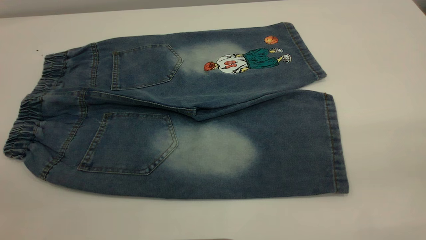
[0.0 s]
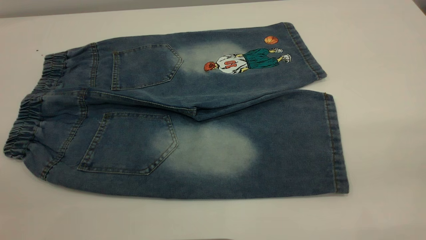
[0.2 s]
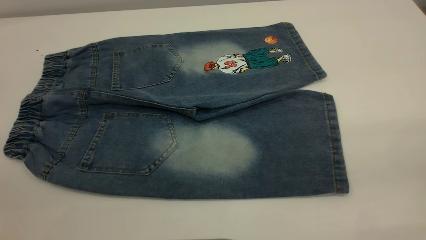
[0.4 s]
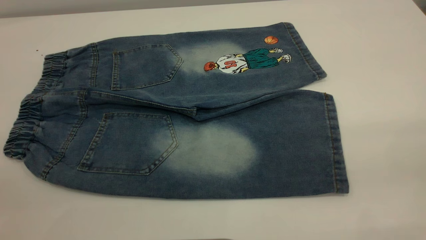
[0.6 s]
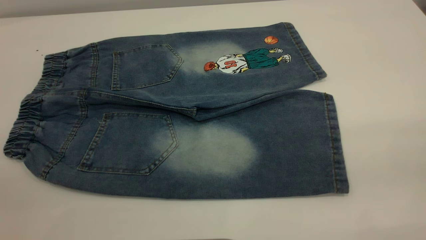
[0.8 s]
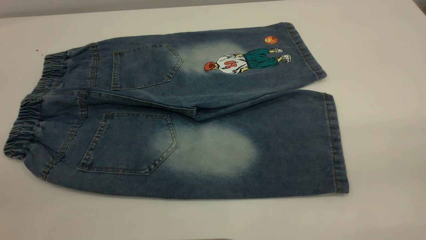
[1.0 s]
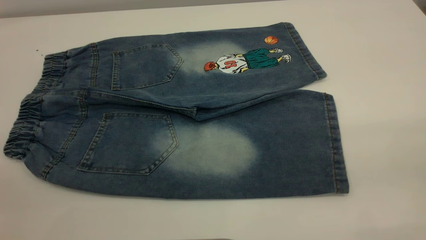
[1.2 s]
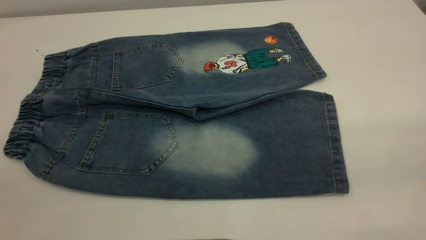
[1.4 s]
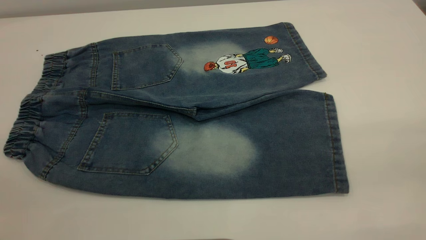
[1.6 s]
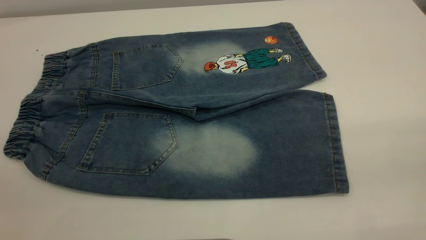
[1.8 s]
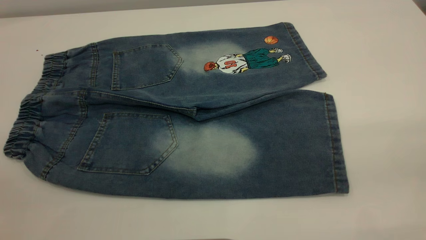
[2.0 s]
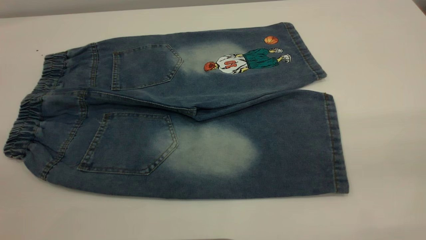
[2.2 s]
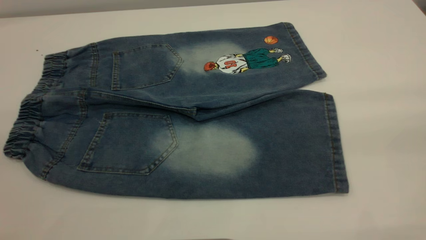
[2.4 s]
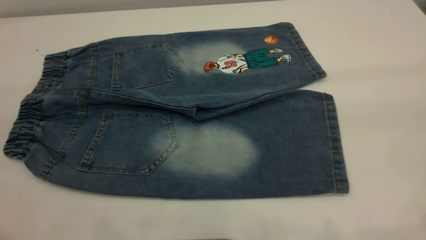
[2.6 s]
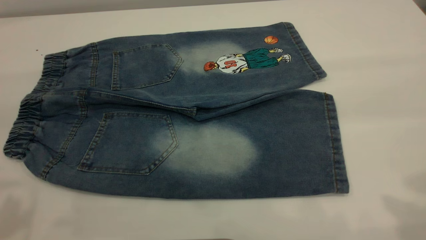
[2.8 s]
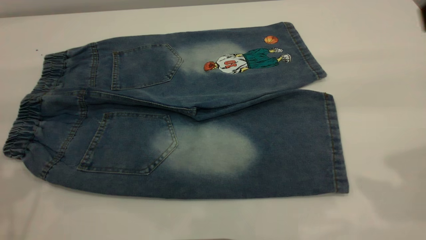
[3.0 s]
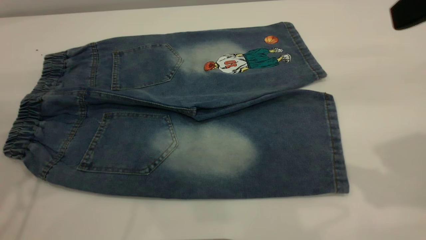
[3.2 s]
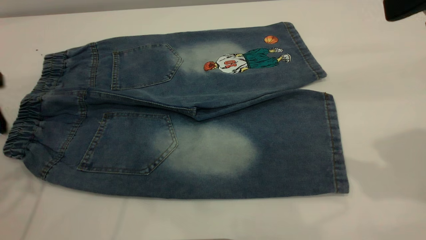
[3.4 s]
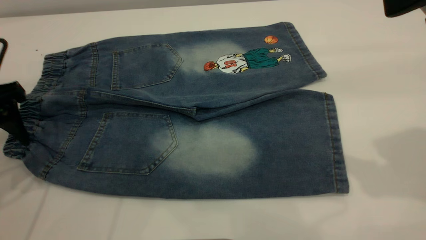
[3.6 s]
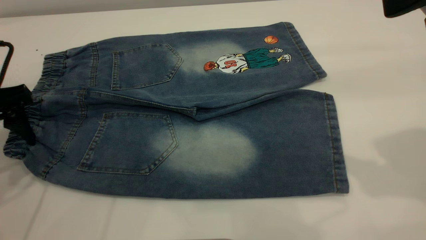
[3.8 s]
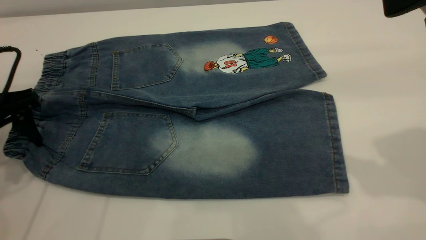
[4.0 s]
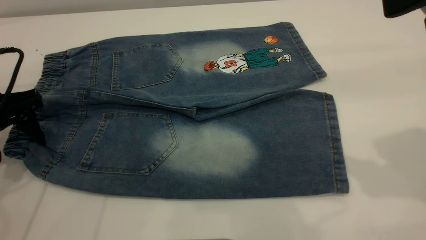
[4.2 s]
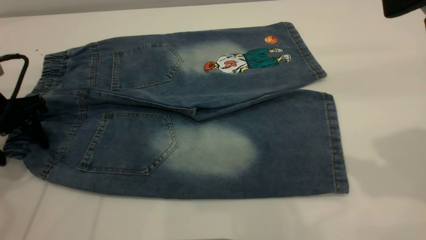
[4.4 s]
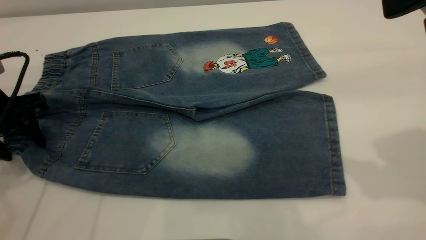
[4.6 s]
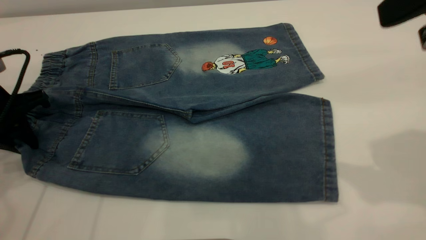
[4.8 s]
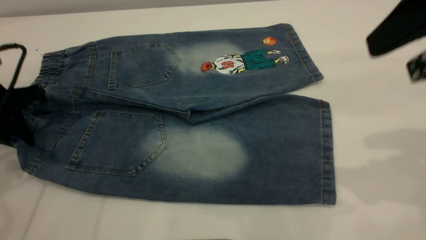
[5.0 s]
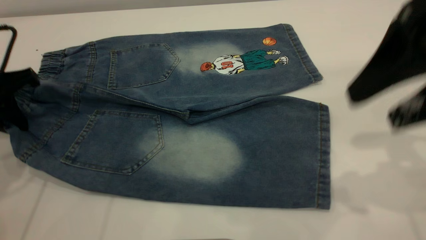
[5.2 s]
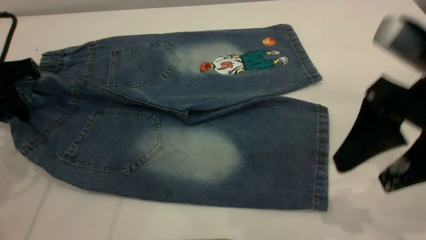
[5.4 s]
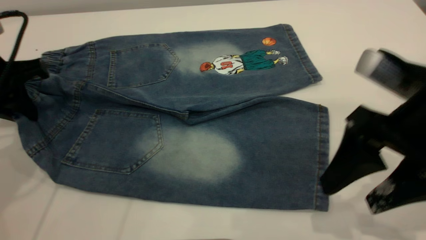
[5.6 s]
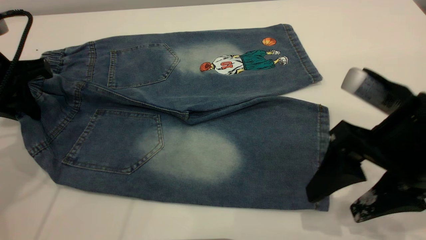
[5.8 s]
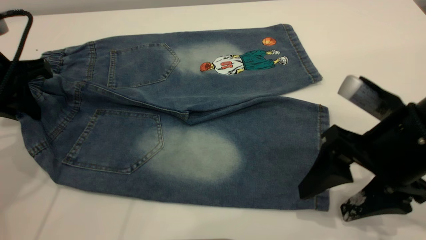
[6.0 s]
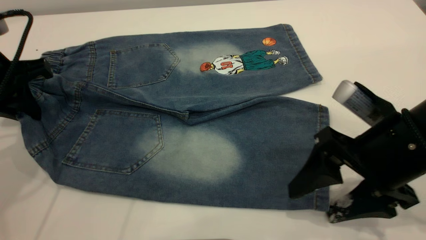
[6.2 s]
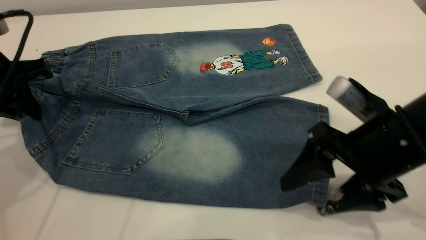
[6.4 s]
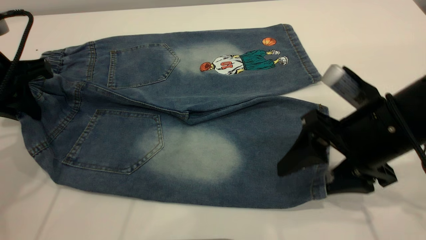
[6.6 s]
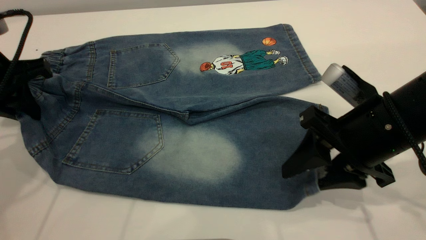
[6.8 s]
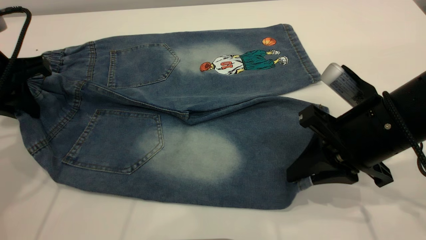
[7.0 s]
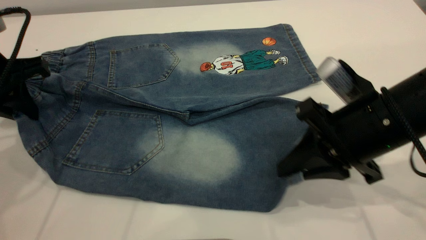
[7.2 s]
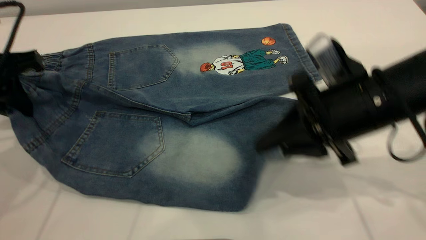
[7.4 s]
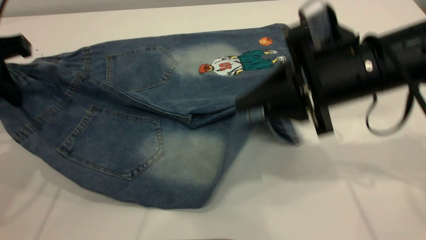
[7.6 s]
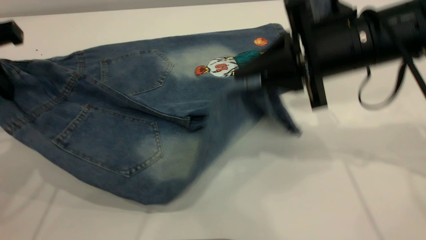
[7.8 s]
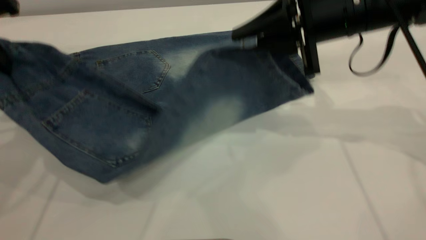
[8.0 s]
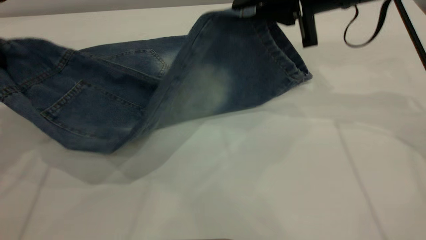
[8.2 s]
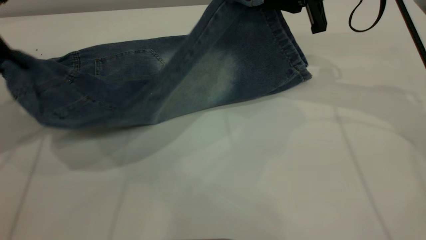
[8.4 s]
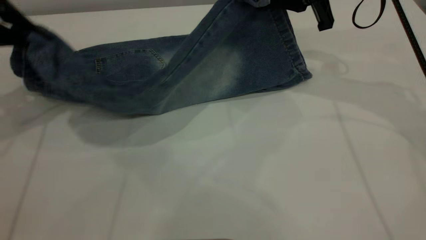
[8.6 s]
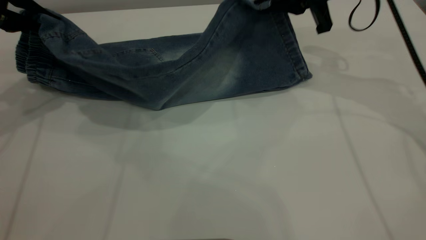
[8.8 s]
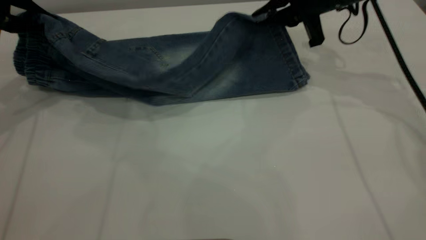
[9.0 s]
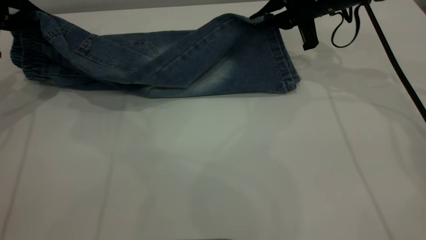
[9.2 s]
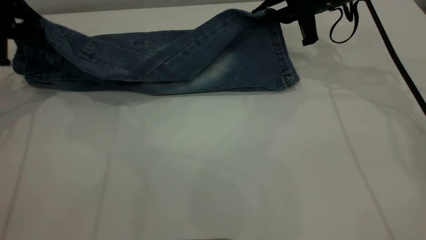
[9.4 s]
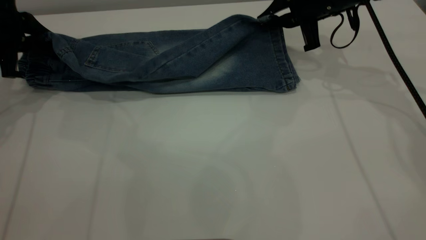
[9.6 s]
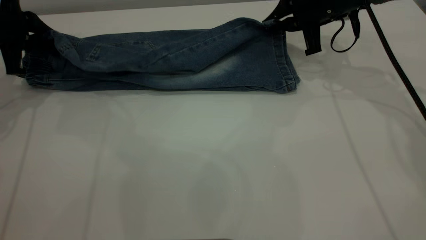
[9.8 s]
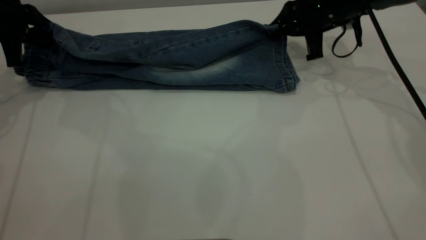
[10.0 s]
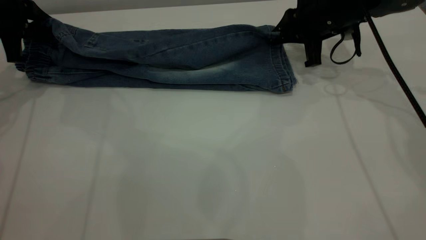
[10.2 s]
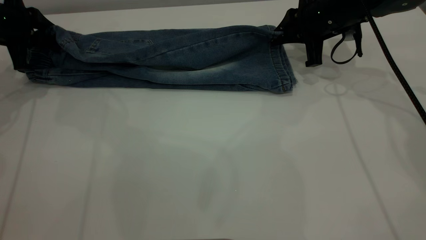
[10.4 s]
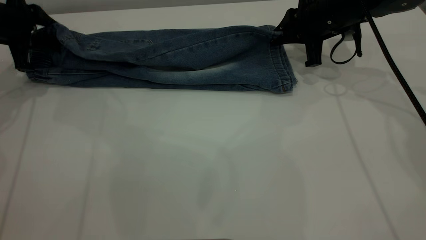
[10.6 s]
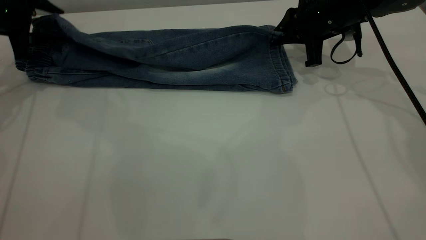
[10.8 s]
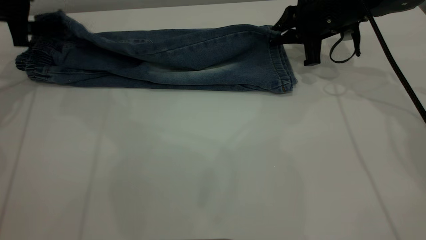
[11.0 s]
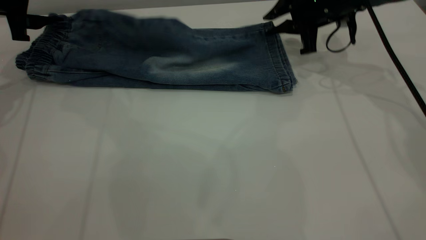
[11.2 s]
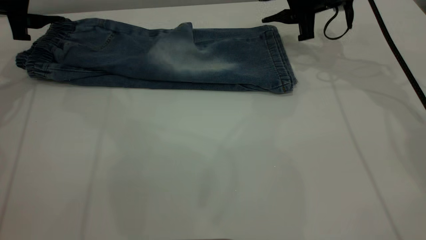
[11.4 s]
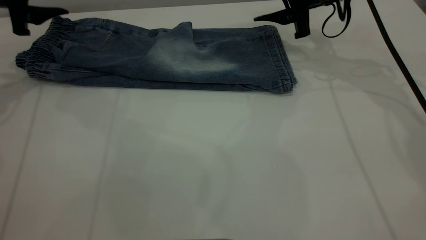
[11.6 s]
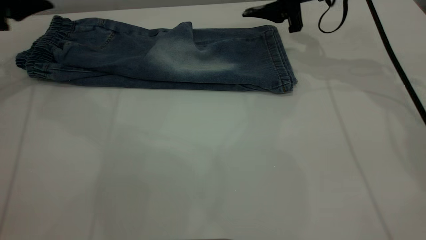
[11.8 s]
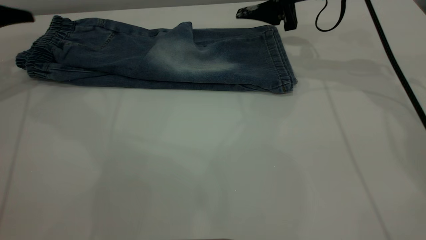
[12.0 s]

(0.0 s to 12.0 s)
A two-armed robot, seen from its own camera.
0.0 s - 1.6 s: Both grippers stay about where they are.
3.0 s - 4.4 s: The left gripper heads downward and forward, covering about 20 cm.
4.4 s - 6.0 s: The right gripper goes some 20 cm downward. The left gripper ends up about 5 cm from where it was, and closes up.
6.0 s - 7.6 s: The right gripper travels forward by about 5 cm, and closes. The left gripper moves about 5 cm.
7.6 s - 9.0 s: The right gripper is displaced forward by approximately 15 cm, while the left gripper heads forward and to the left, covering some 10 cm.
9.0 s - 10.4 s: The right gripper moves about 5 cm. The left gripper shifts about 5 cm downward.
10.4 s - 12.0 s: Both grippers move upward, roughly 5 cm. The right gripper opens its fingers; the left gripper opens up.

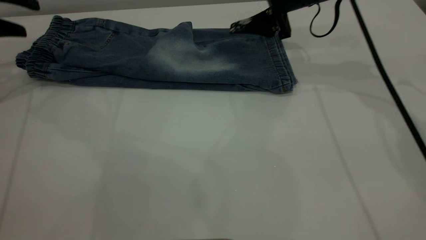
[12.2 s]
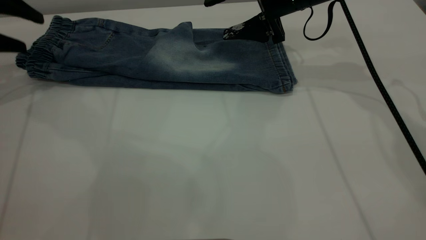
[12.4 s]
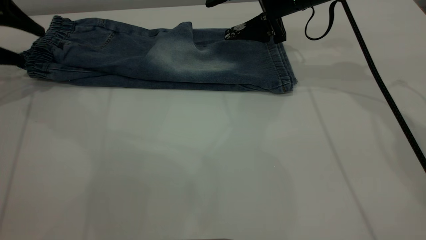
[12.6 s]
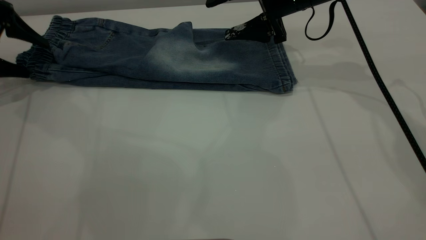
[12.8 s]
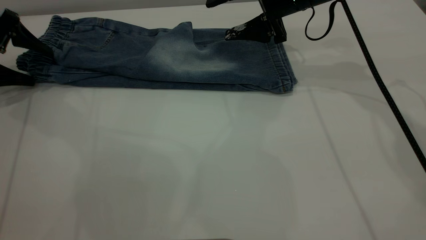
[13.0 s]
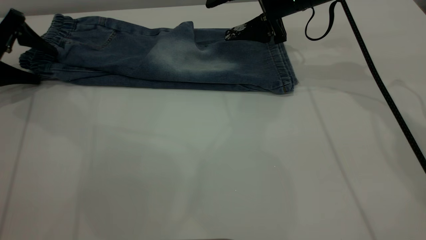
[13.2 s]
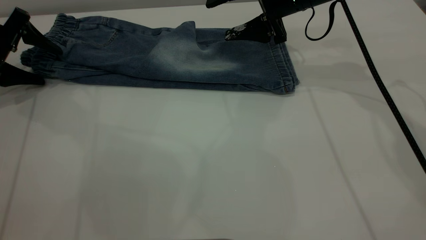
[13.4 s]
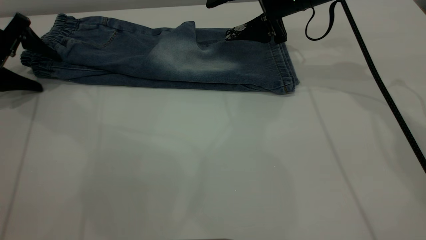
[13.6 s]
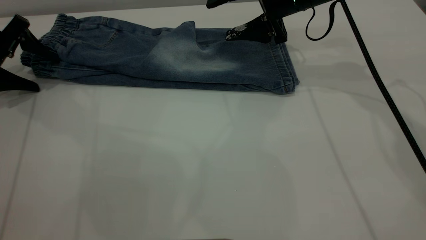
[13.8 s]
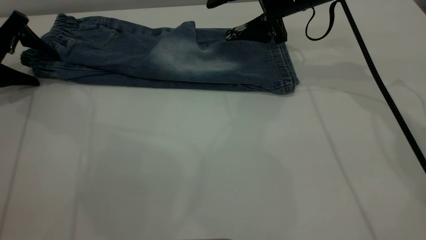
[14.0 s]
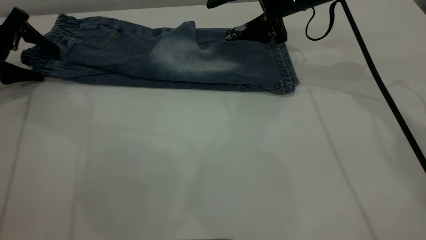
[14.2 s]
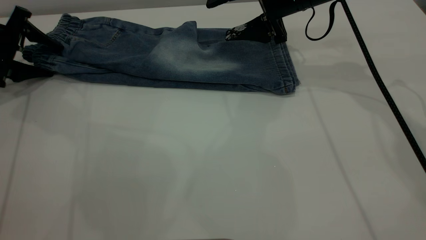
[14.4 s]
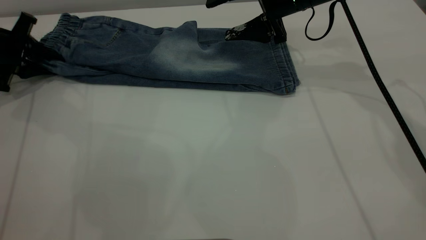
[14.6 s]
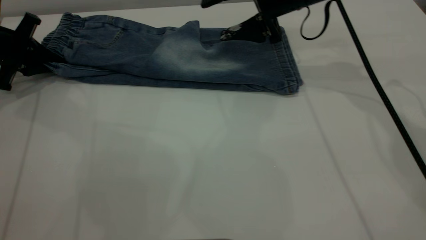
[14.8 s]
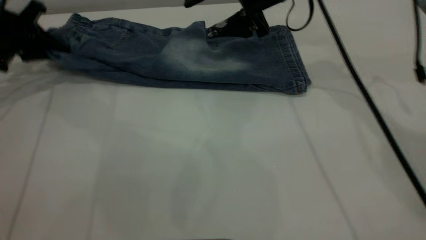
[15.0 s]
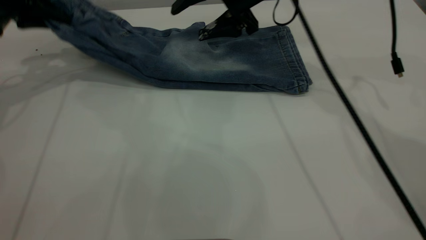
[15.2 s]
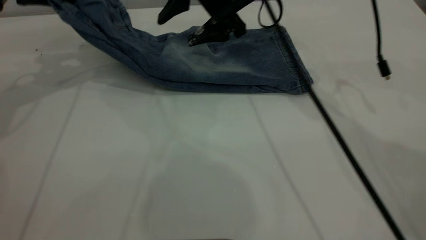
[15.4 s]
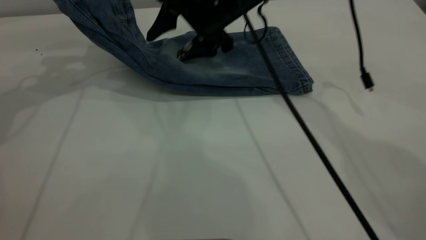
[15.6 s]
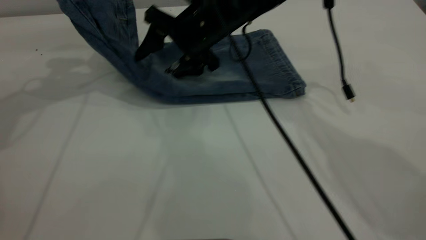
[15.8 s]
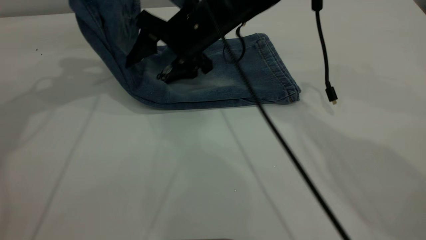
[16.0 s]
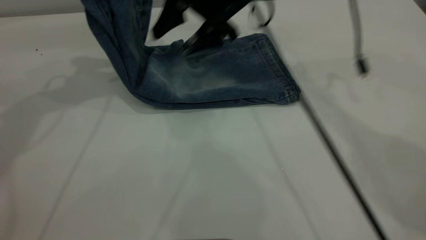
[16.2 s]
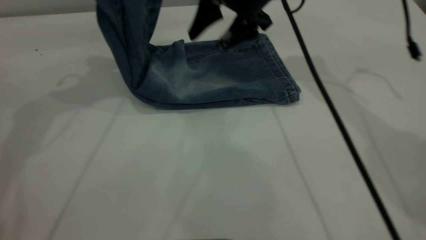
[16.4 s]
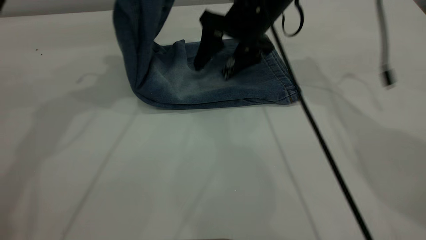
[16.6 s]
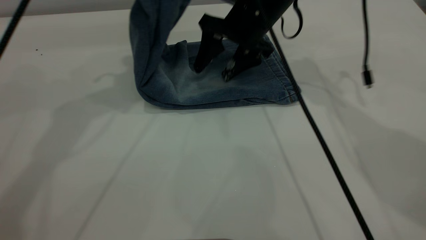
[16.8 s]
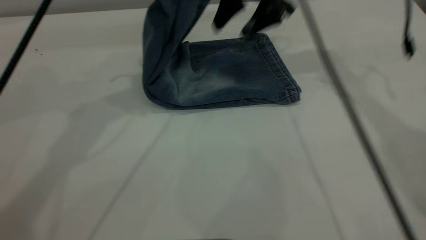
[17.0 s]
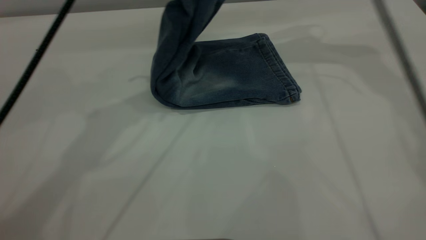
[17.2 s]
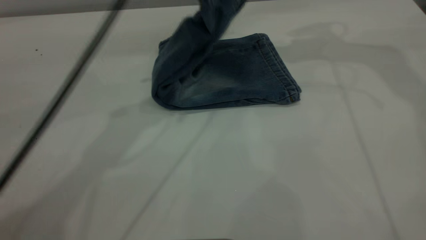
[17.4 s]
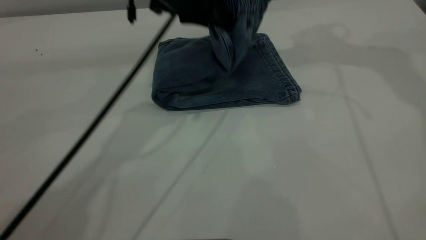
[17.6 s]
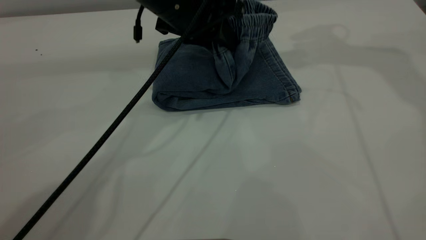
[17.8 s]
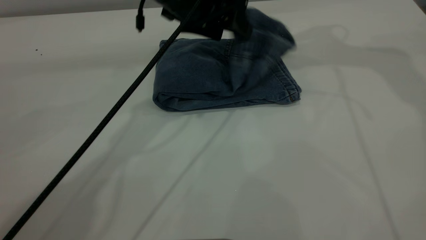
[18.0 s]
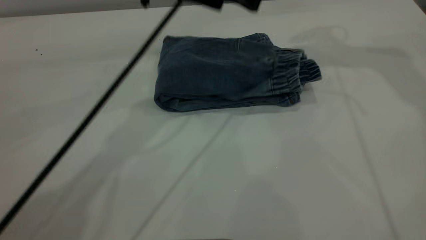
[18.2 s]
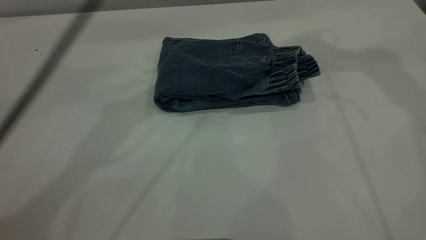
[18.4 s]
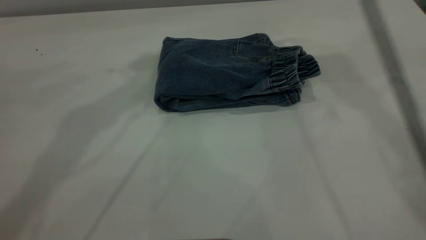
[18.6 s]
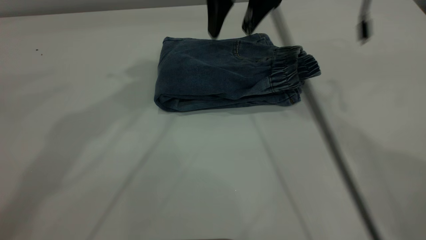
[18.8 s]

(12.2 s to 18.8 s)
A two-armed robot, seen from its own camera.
Step, 12.2 s - 18.4 s: Fold the pants from left to right.
12.2 s - 13.8 s: The left gripper heads downward, covering approximately 5 cm.
13.8 s - 15.4 s: The right gripper shifts roughly 10 cm to the left. The left gripper heads upward and to the right, covering some 15 cm, and closes up.
15.4 s - 17.2 s: The left gripper goes approximately 20 cm to the right, while the right gripper moves to the right and upward, some 20 cm.
17.2 s - 18.8 s: The right gripper goes about 15 cm to the left and downward. The left gripper moves upward, about 10 cm, and opens up.
